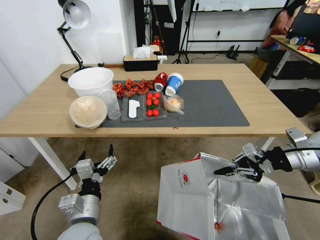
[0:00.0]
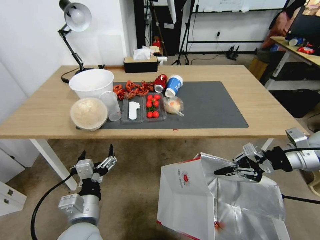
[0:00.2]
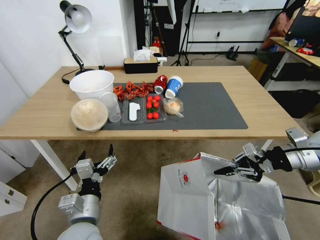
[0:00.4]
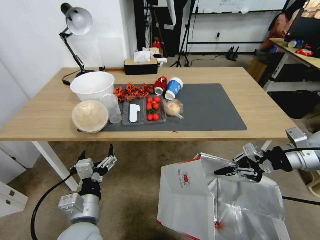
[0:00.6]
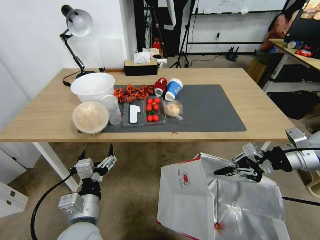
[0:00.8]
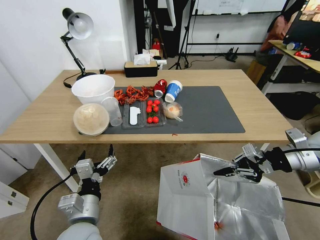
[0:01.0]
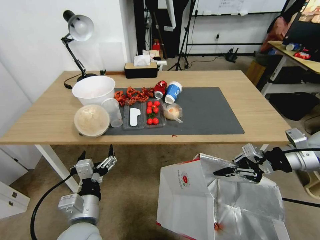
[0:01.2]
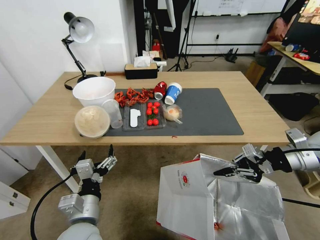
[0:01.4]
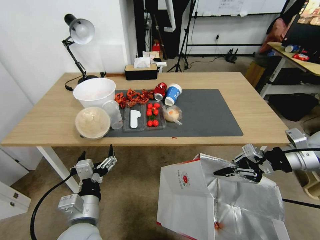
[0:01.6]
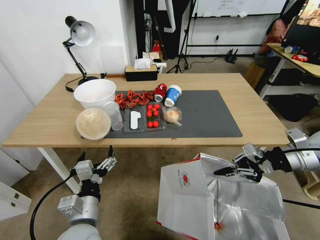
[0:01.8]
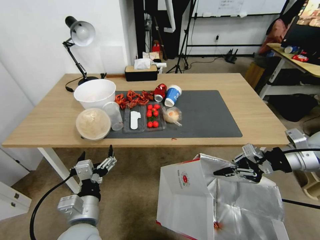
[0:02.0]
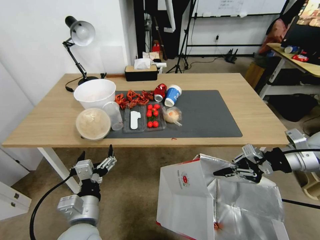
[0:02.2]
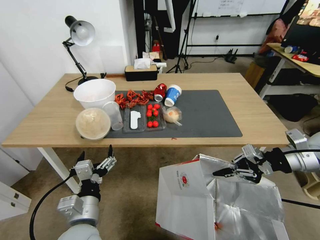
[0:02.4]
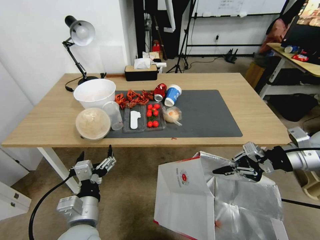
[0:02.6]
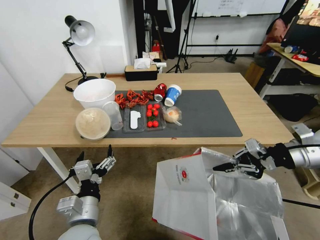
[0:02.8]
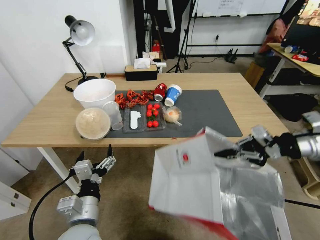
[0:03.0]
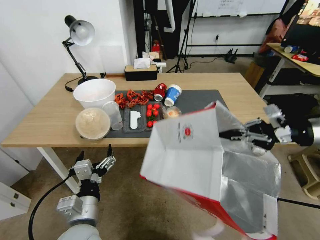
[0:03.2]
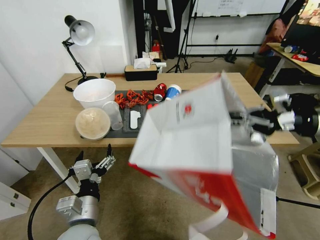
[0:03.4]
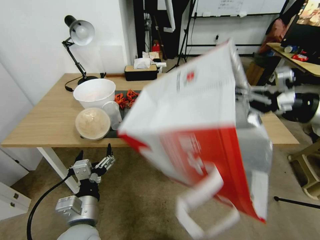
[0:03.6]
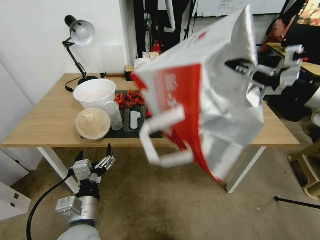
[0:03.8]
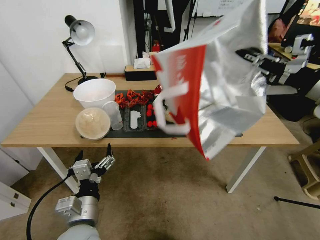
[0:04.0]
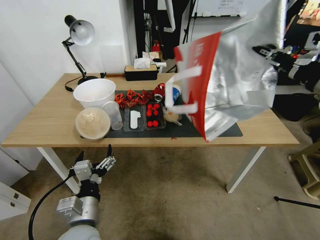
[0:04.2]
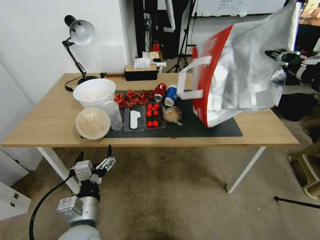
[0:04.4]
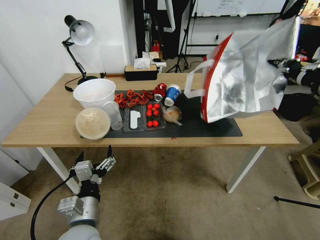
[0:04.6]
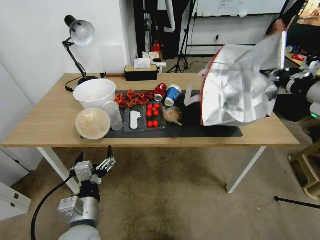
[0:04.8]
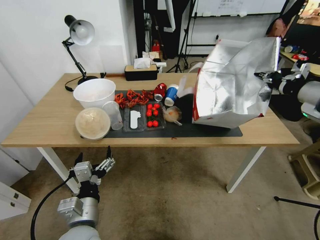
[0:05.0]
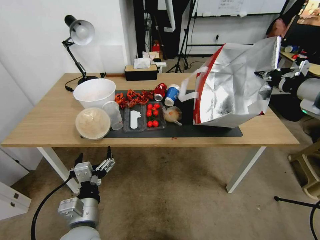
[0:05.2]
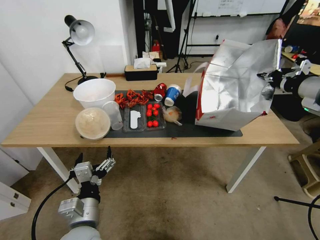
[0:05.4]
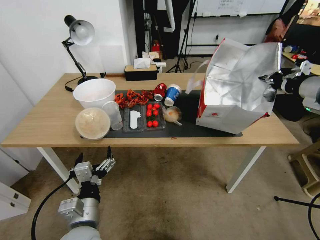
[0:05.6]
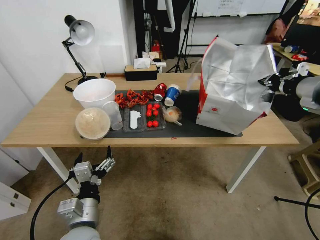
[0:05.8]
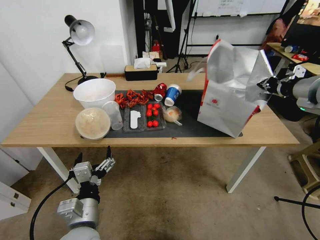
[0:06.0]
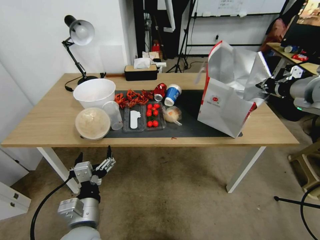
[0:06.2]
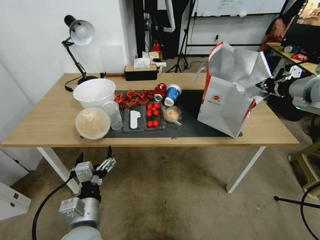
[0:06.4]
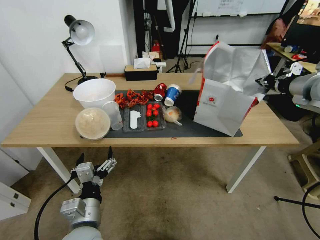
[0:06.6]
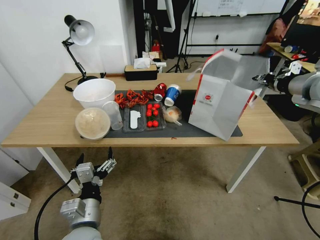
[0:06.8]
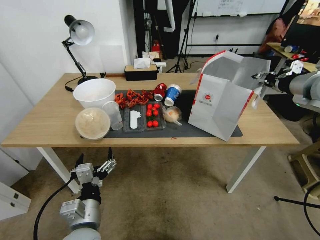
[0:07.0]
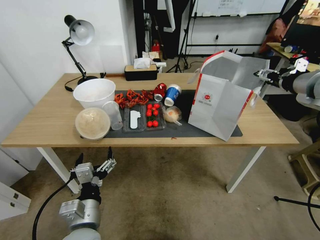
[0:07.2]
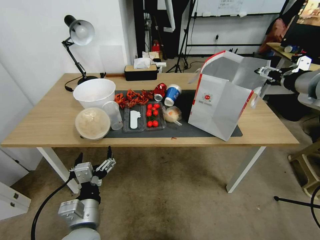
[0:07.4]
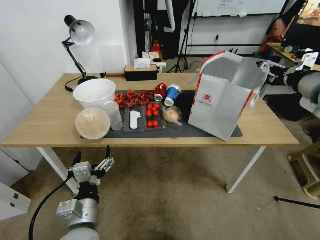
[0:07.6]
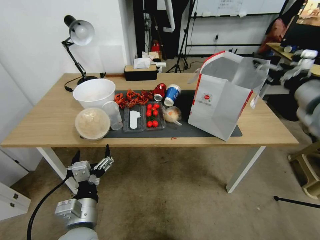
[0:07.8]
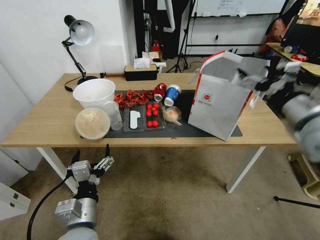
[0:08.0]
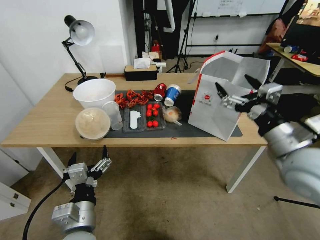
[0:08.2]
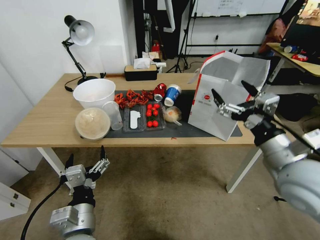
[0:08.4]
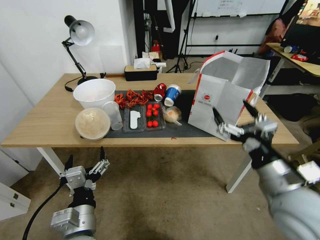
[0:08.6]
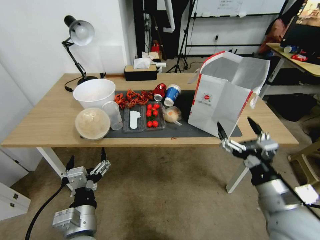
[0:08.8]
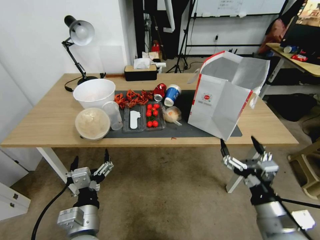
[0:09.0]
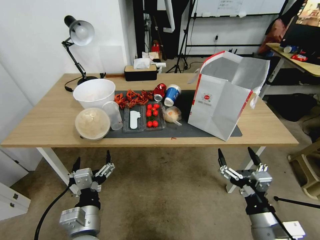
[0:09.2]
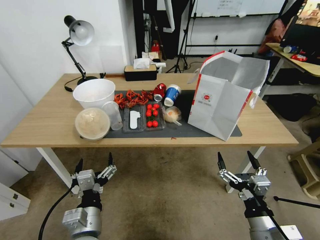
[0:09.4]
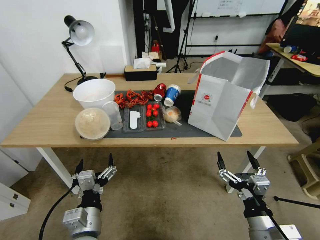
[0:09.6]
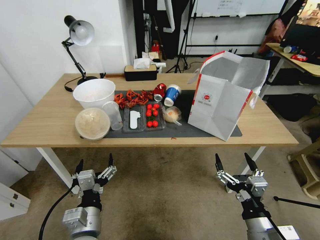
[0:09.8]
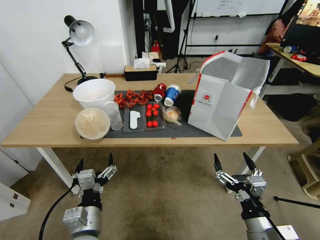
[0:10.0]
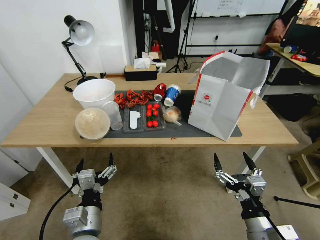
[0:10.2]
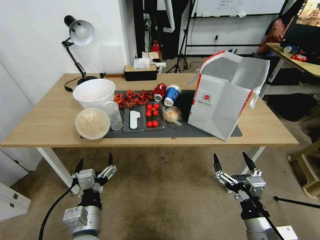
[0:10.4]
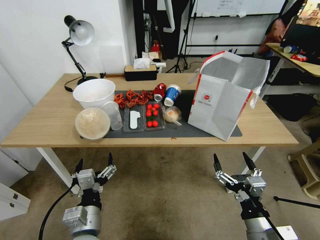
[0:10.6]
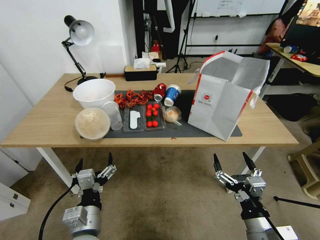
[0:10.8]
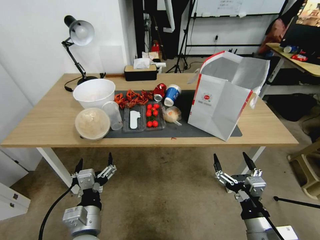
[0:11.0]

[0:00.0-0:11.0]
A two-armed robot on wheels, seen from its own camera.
Task of the whole recording: Pick up the food delivery bag from the floor and place it on the table.
0:01.6 to 0:03.2: The right gripper travels upward by roughly 5 cm.
0:04.8 to 0:06.2: The right gripper ends up roughly 5 cm from where it was.
0:06.2 to 0:07.8: The right gripper ends up about 5 cm from where it was, and opens its fingers.
0:07.8 to 0:09.4: The right gripper moves downward, backward and to the left, approximately 35 cm.
0:09.4 to 0:11.0: Neither gripper changes place.
